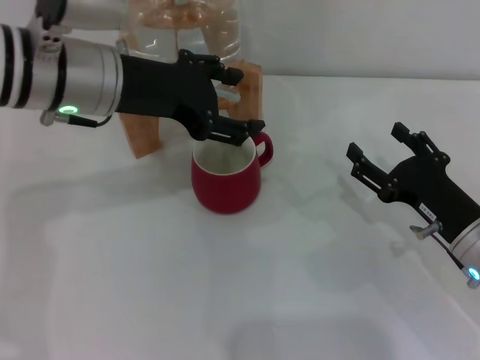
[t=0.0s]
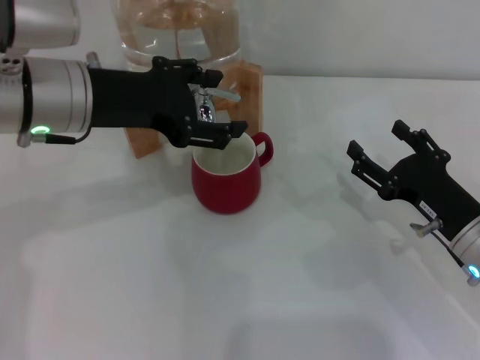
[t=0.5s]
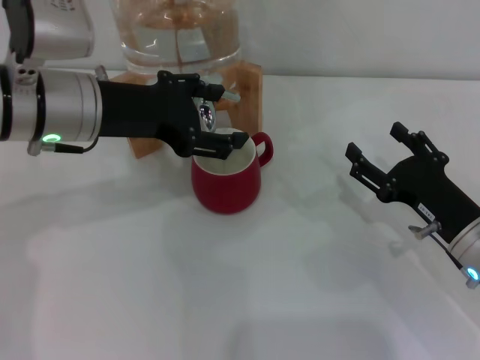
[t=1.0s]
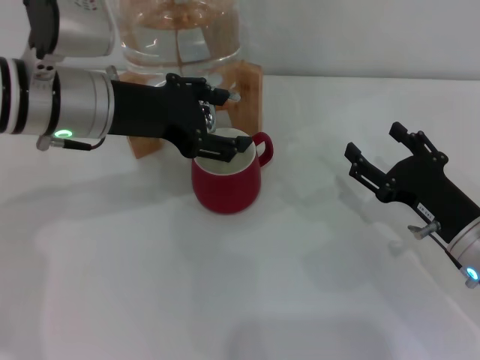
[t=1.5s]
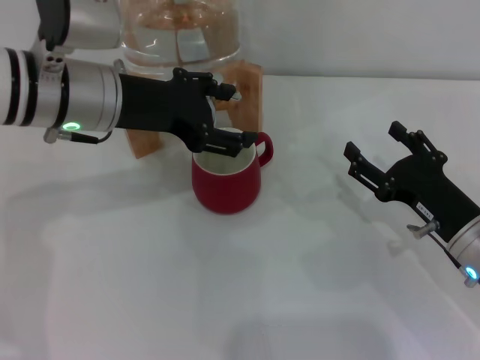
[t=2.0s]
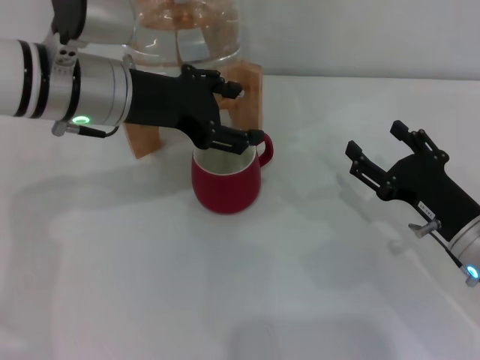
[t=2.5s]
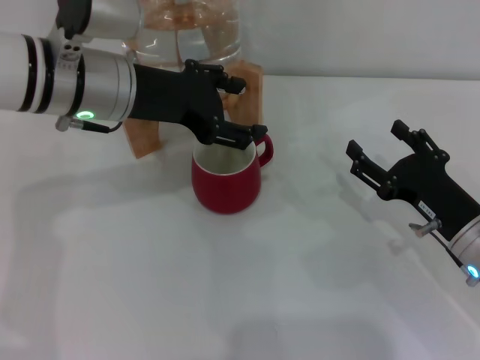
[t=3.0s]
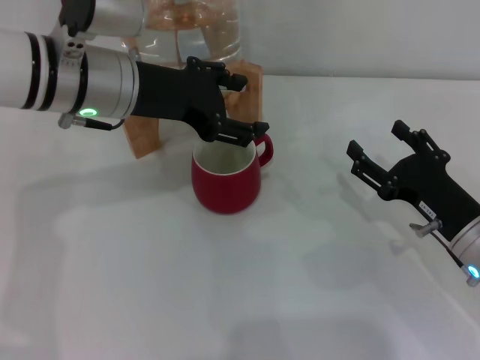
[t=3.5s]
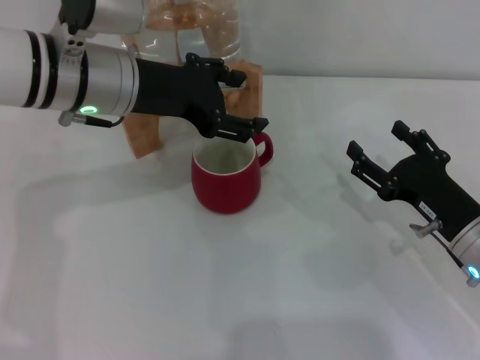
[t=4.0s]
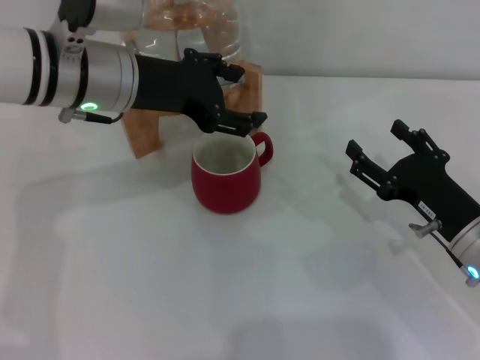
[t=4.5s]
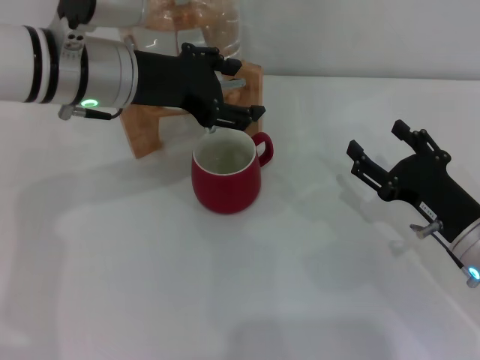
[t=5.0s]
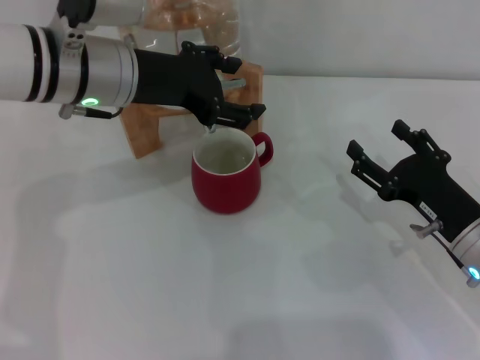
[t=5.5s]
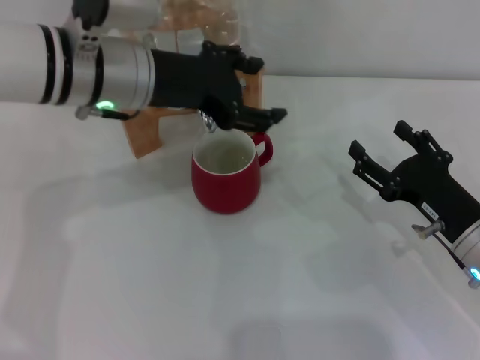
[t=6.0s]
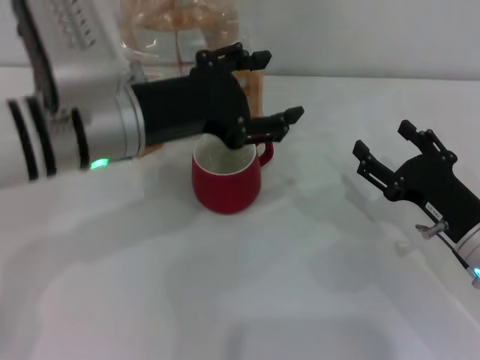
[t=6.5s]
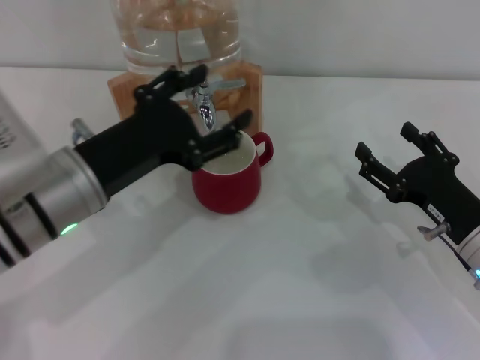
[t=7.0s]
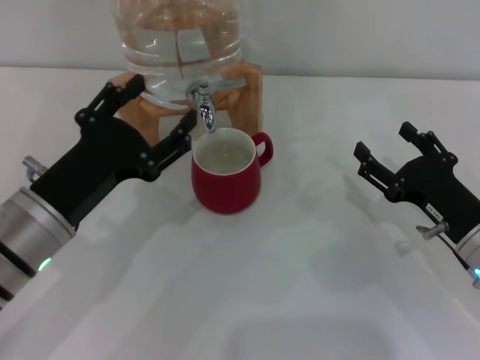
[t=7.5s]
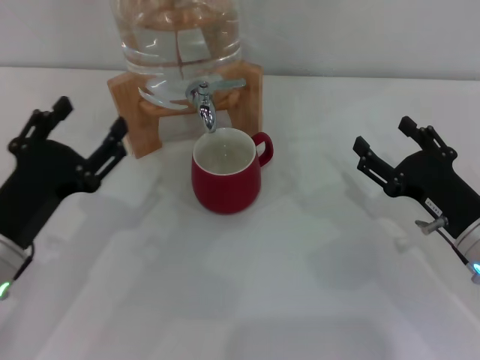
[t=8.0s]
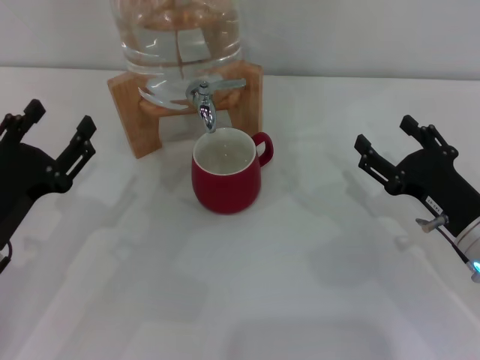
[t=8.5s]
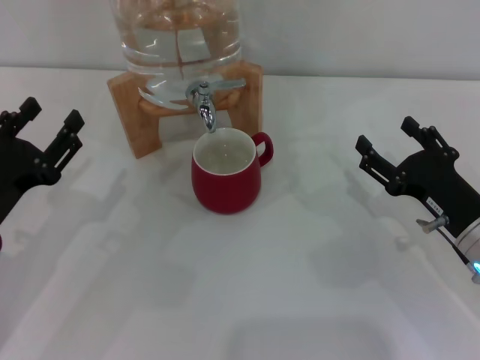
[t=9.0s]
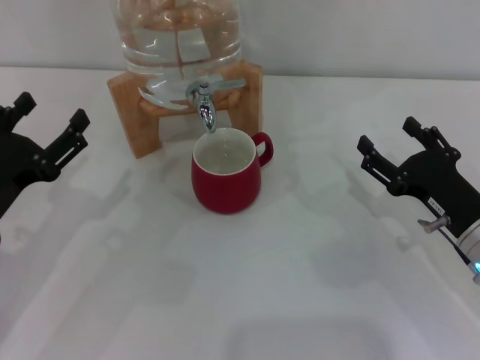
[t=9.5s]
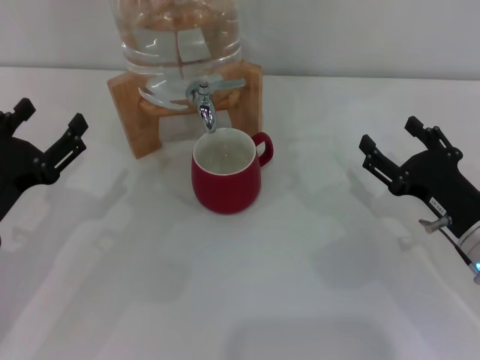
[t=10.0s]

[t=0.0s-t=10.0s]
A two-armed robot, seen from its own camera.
Task of the whole recording: the right gripper pick up the red cup and place it horizontally under the faucet, the left gripper turn on the faucet to fill the cup, and then turn off the faucet.
Step, t=0.0s to t=6.0s: Close the dispenser valve with the left gripper.
t=0.0s to t=6.0s: There are only small adjustments of the grippers.
t=6.0s to t=8.0s: The left gripper heads backward, downward and to the left, covering about 20 cm.
t=8.0s to t=10.0s: There are only small adjustments of the grippers.
